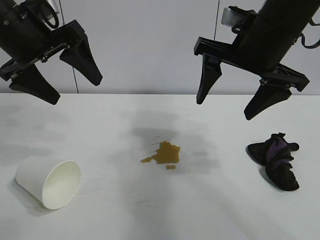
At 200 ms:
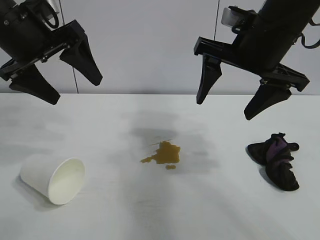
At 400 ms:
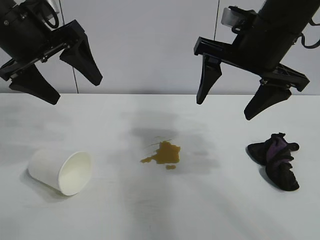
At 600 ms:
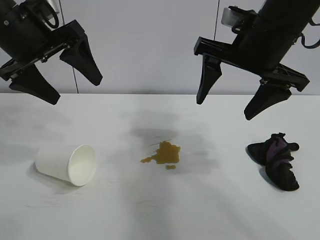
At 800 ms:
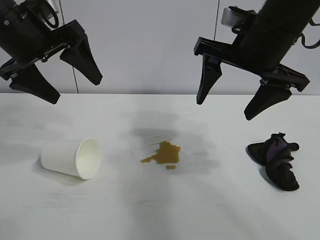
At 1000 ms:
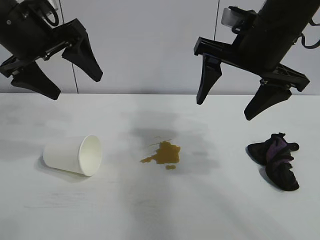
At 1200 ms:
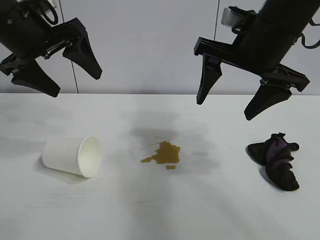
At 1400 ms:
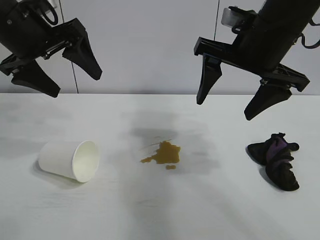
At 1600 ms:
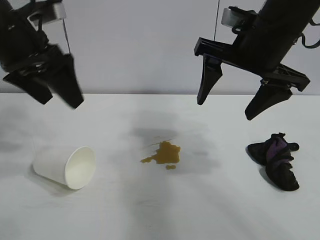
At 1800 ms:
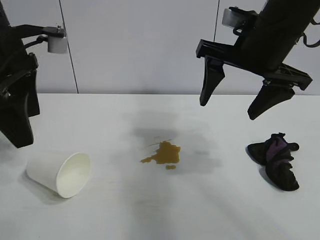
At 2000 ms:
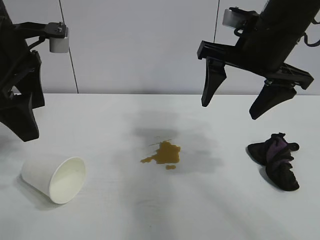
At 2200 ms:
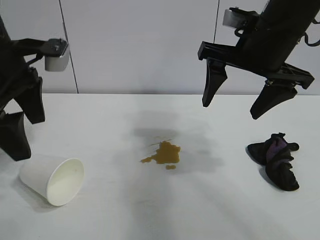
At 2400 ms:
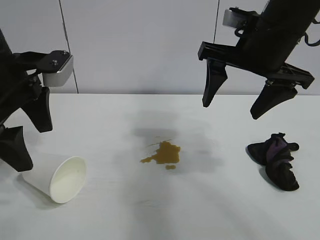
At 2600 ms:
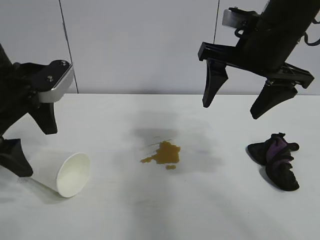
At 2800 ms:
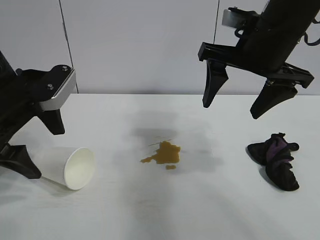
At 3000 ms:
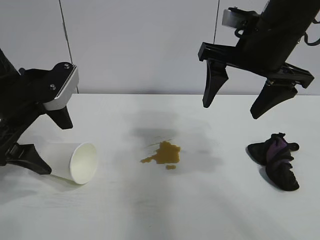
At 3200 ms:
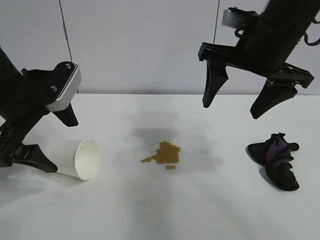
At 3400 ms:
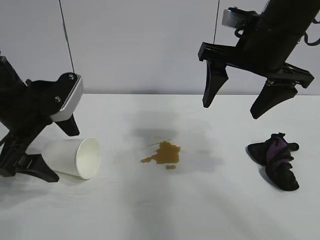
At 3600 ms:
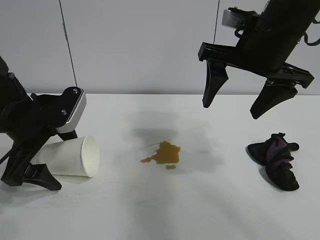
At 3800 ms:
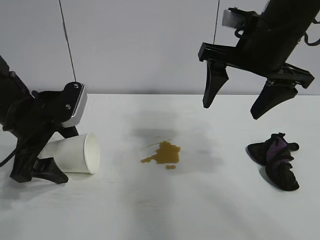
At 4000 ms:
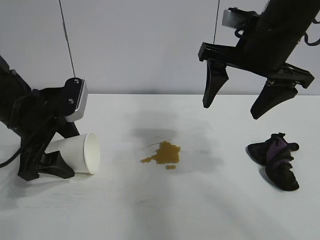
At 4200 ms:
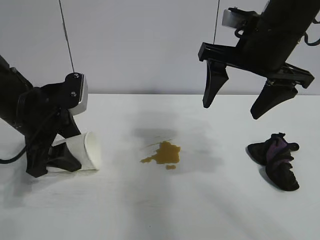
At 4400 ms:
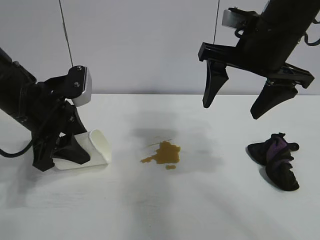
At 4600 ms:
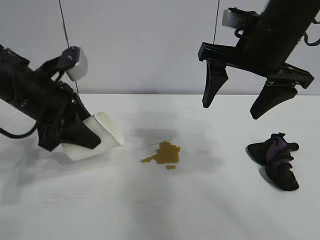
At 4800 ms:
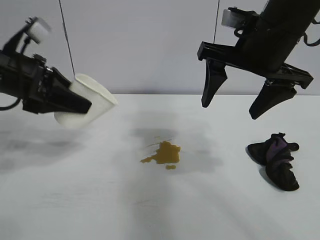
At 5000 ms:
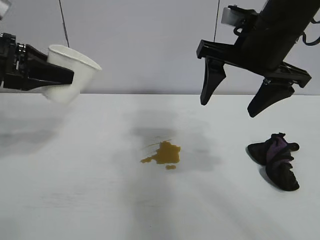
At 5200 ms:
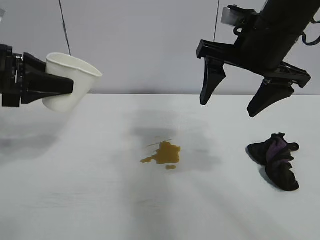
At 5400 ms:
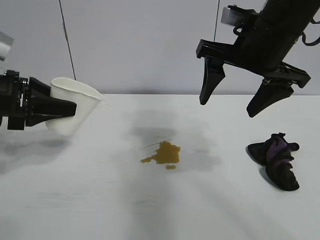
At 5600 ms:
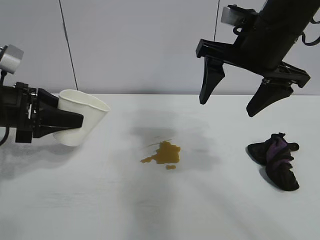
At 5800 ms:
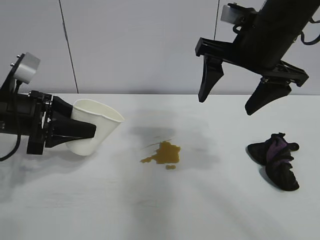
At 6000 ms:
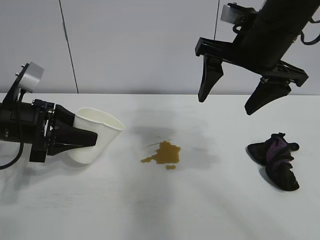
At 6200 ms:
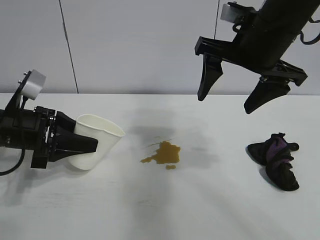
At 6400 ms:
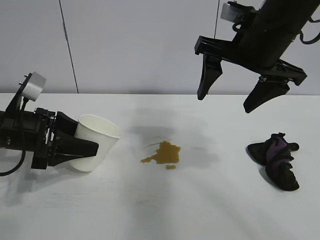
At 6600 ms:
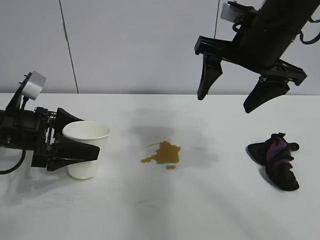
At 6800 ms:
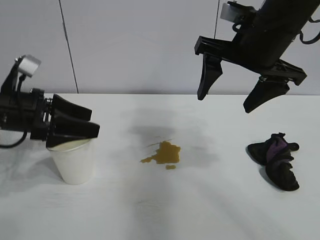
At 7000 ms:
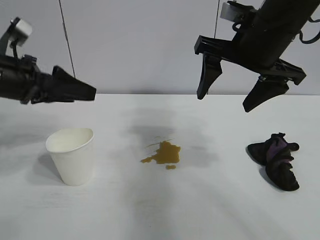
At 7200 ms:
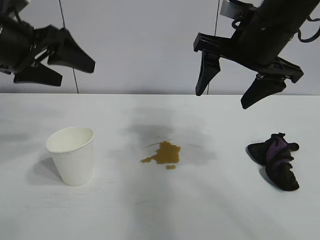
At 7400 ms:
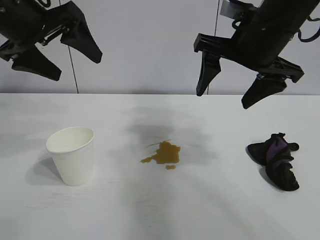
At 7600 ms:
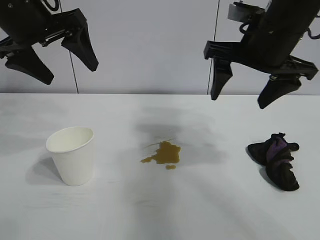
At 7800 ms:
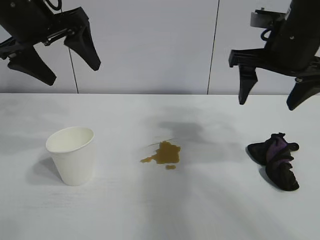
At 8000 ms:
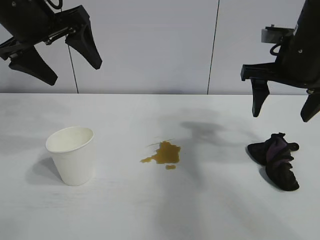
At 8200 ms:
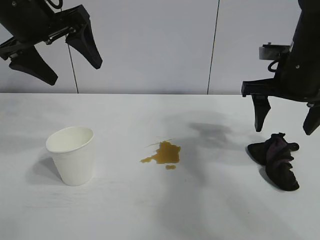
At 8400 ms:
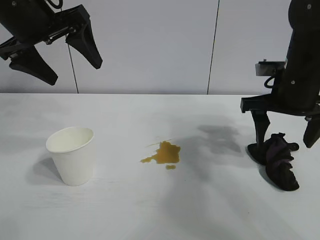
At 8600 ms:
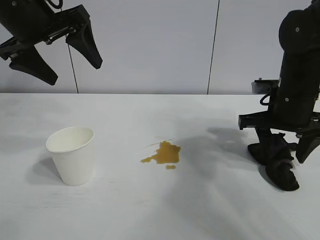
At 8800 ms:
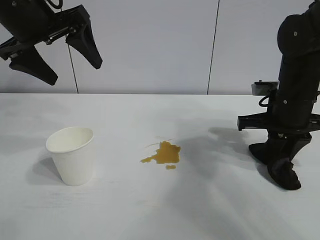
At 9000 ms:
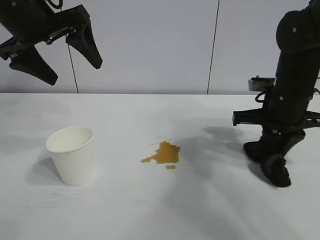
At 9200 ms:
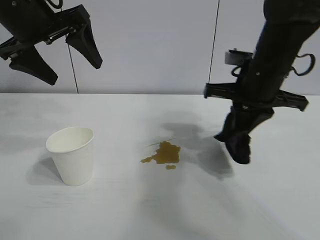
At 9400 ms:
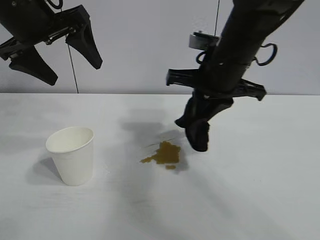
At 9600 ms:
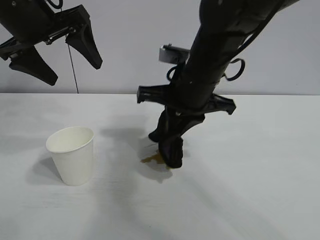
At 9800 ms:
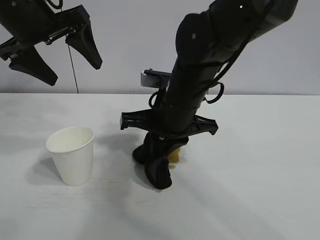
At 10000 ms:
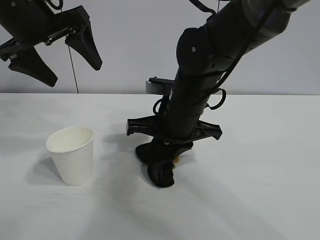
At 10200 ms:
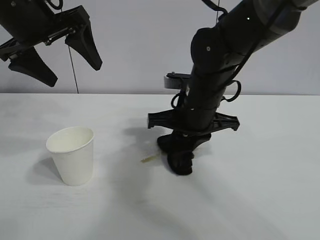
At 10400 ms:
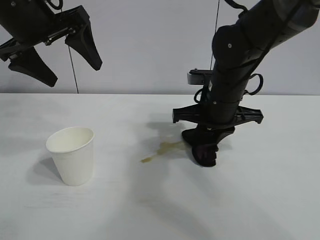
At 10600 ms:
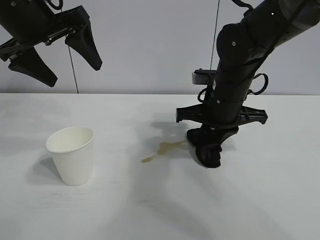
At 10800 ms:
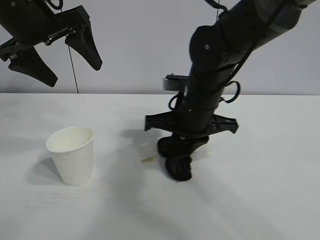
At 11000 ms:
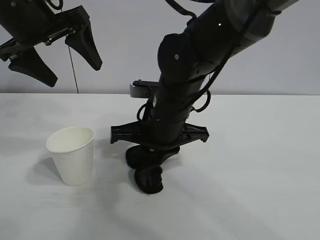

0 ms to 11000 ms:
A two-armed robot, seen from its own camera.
Task of the whole recording: the left gripper pick up the fallen cup and place it upright, the right gripper grasp the black rag and wipe the stain on the table, the right gripper put the black rag back in its original position.
Step, 800 ms to 4200 ms: Grasp the paper cup with left gripper.
Step, 4400 ms to 6600 ms: Stand the paper cup upright with left gripper.
Step, 7000 ms to 8600 ms: Grasp the rag with right gripper.
